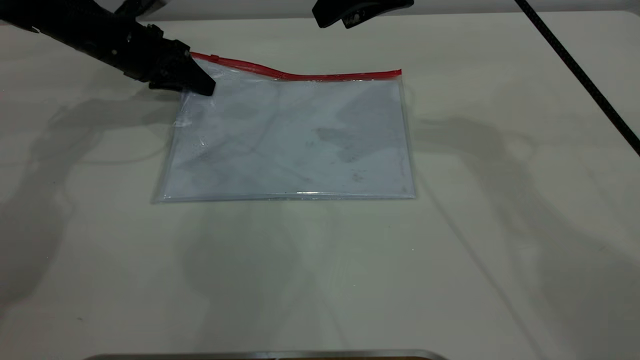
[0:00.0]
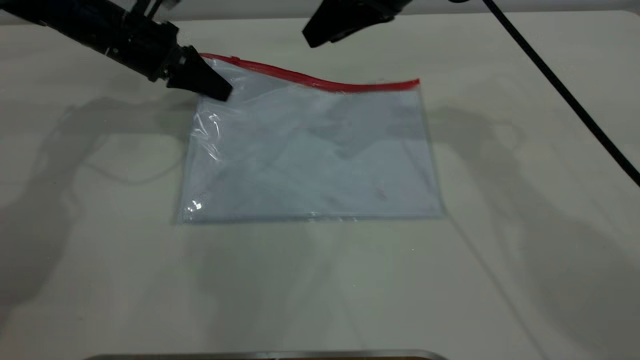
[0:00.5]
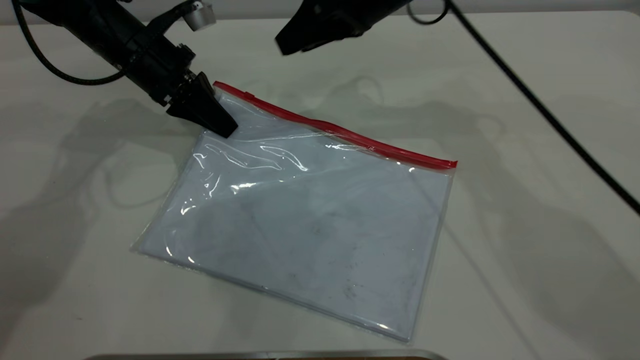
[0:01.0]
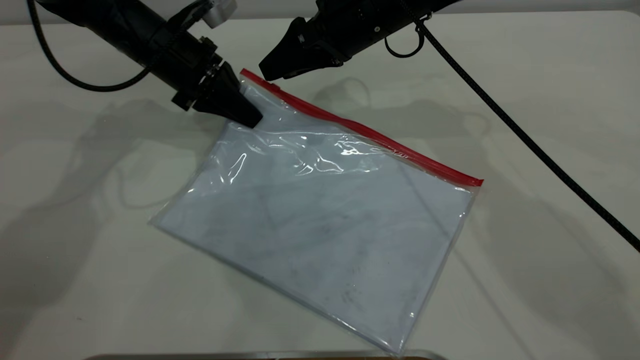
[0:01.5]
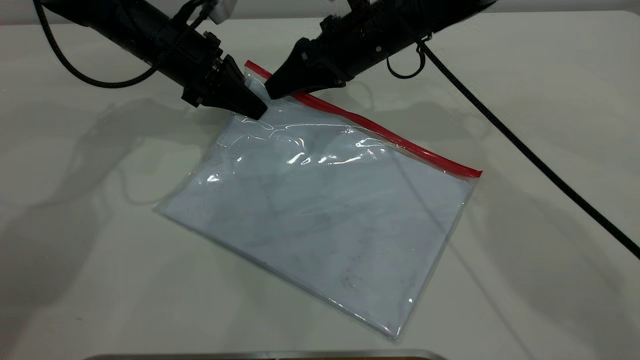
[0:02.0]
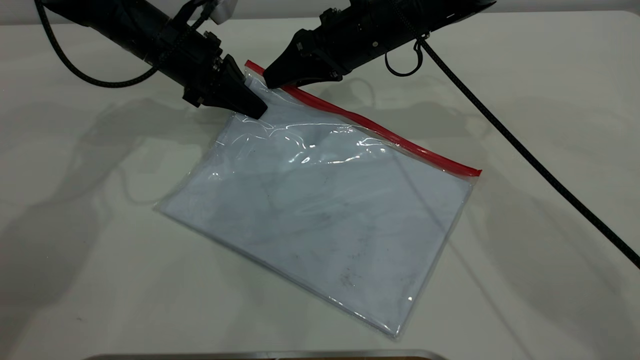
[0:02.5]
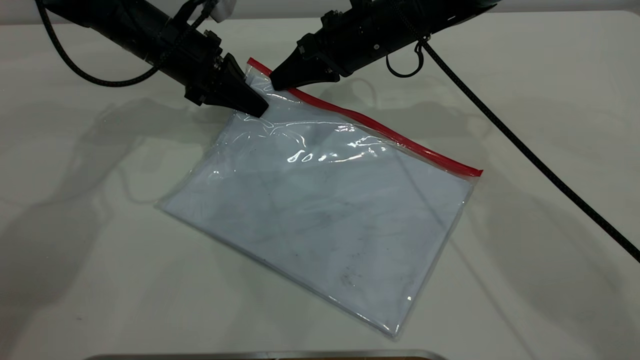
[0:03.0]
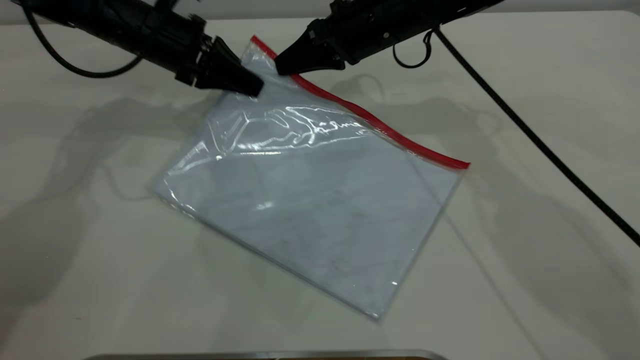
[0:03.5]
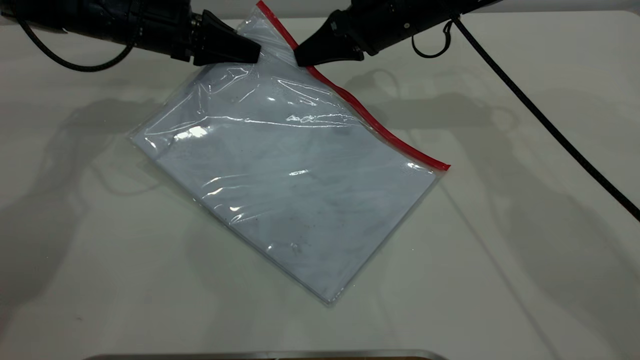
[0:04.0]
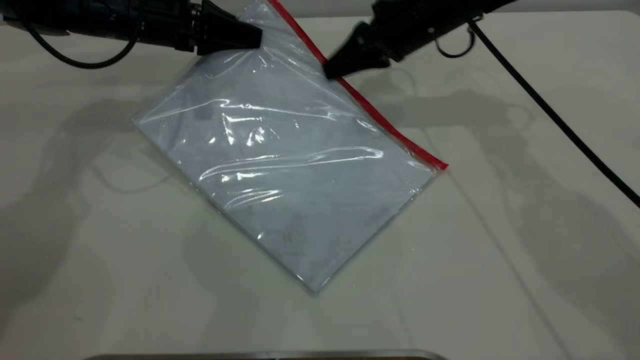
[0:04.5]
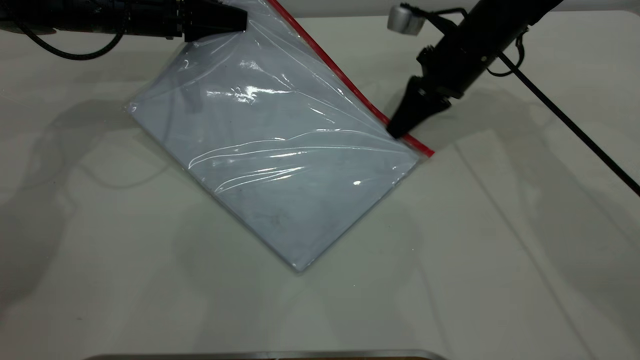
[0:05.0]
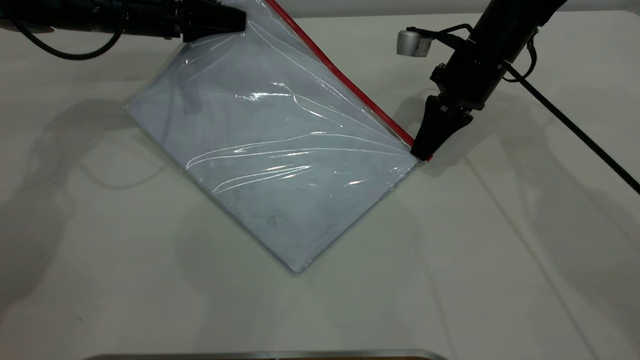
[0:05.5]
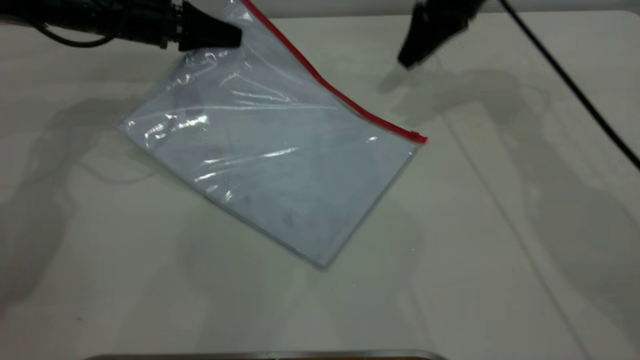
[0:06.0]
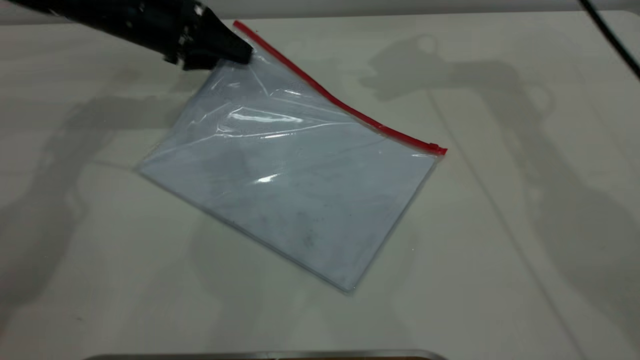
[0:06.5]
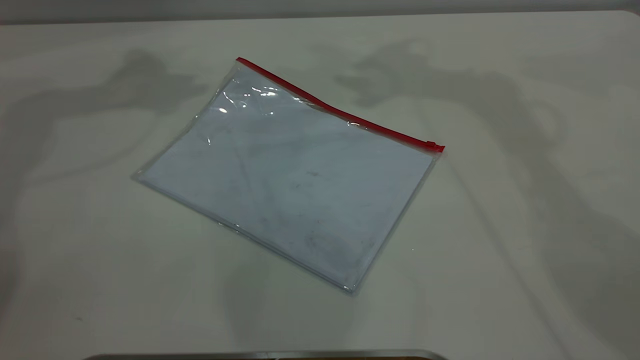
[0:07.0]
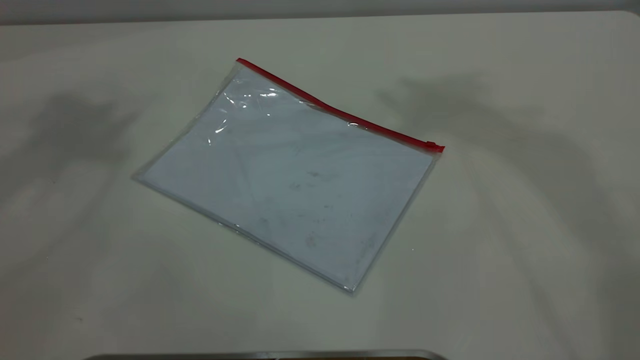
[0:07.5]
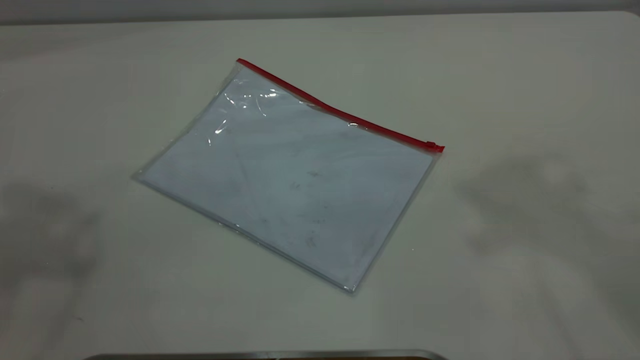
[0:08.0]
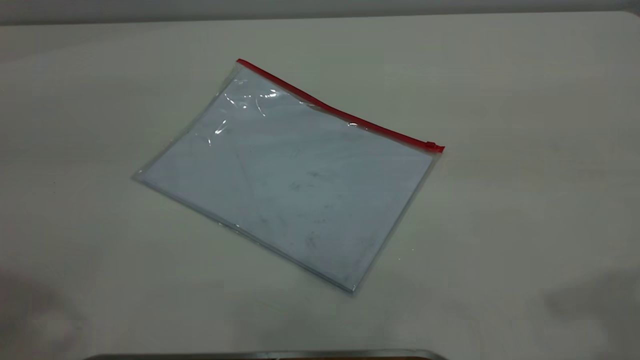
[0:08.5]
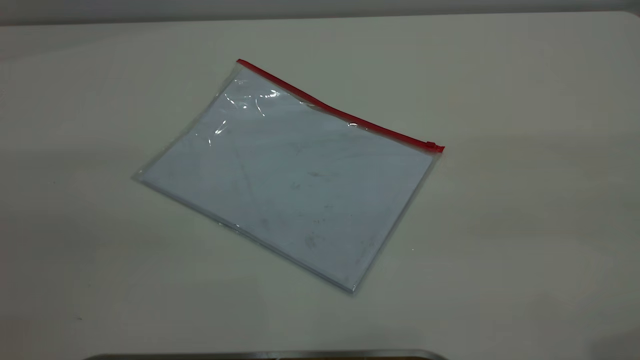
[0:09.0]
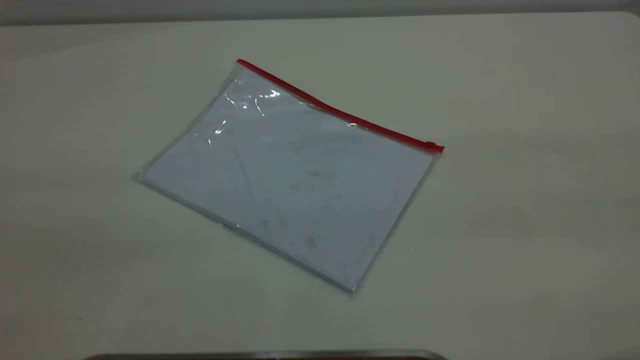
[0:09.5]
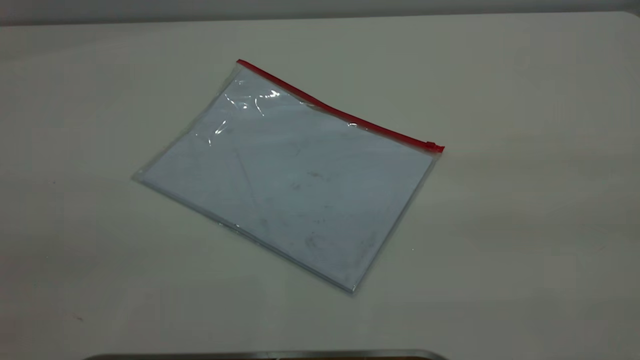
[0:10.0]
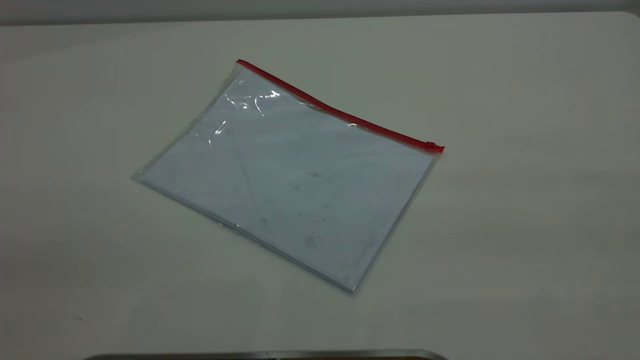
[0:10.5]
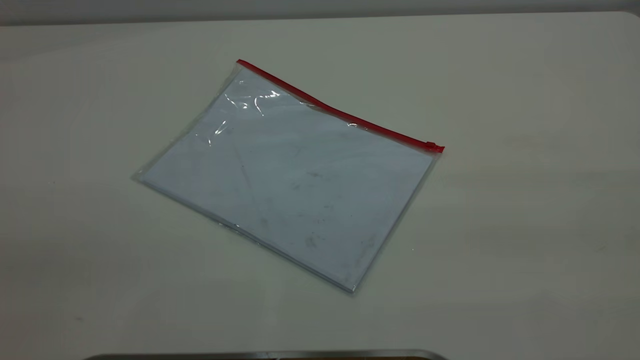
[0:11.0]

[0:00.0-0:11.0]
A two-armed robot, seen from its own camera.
Step, 0:01.0 to 0:05.5: Pulling up the zipper on the transparent plastic bag with the right gripper to close it.
Step, 0:06.0 to 0:06.5: Place the transparent plastic bag.
0:00.0 to 0:02.0: The left gripper travels to the right by roughly 5 cm; the right gripper is displaced downward by about 10 cm.
0:02.0 to 0:03.5: The right gripper closes up.
0:03.5 to 0:05.5: The right gripper goes roughly 10 cm to the right.
0:05.5 to 0:07.5: The two grippers go some 50 cm upward. The right gripper opens. Meanwhile the left gripper opens.
